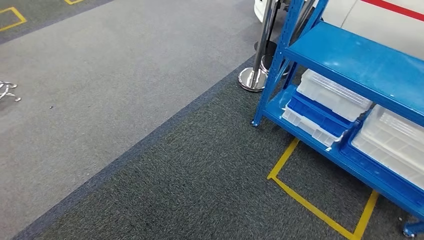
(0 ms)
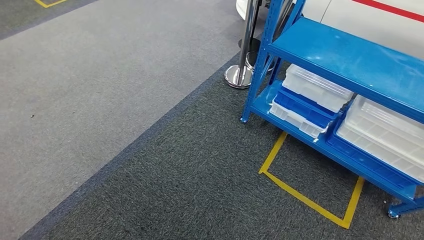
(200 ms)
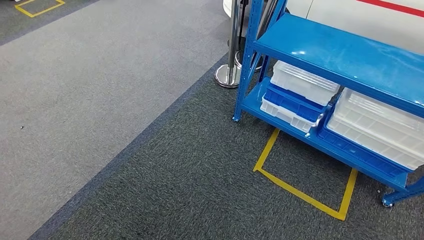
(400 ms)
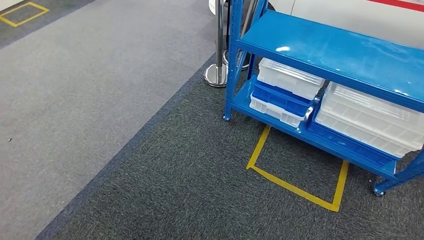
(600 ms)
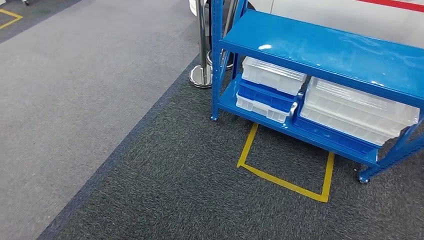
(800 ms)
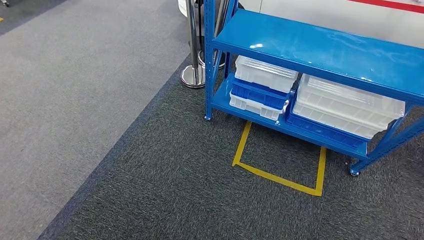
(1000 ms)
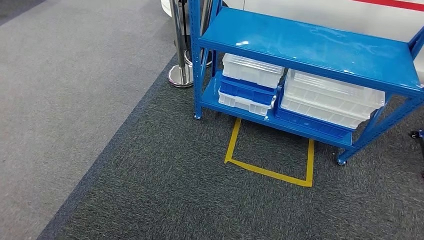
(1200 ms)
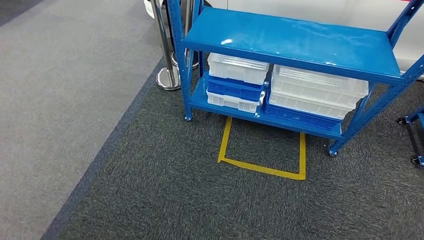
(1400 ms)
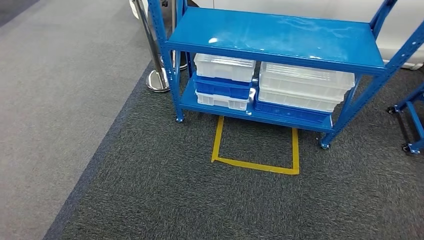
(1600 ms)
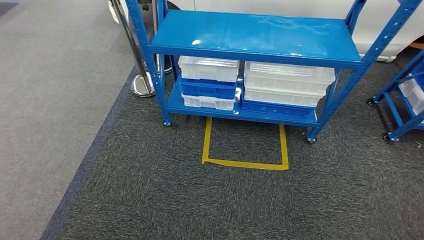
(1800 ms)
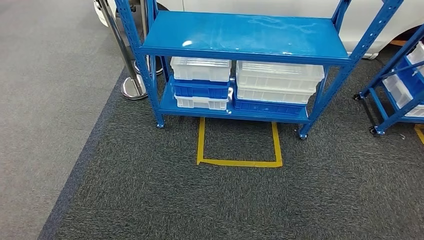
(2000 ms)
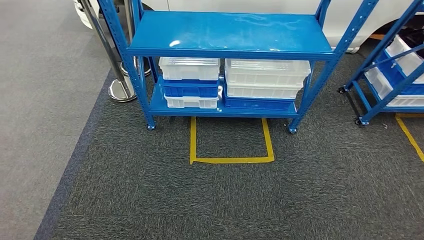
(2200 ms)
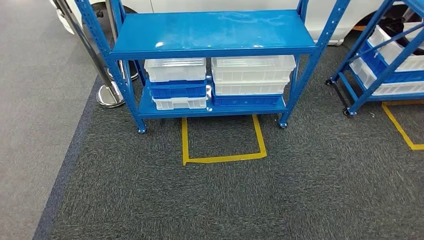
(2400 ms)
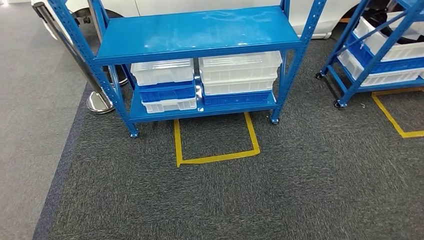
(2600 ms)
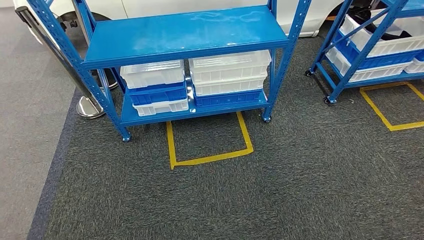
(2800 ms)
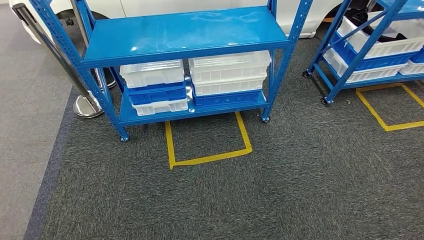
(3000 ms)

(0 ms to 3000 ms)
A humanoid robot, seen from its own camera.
Step, 0 ms - 3000 ms: Move to the initial position of the shelf.
